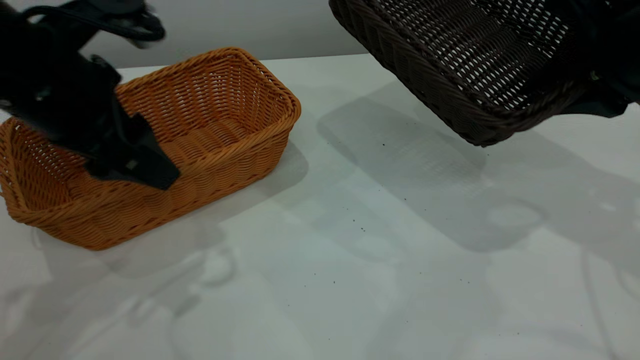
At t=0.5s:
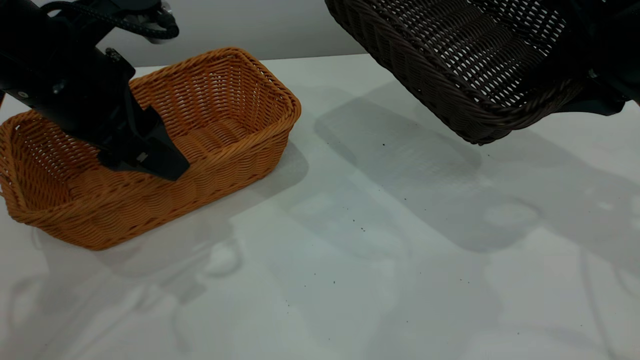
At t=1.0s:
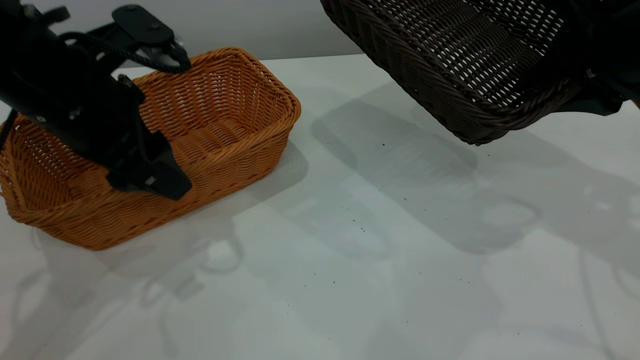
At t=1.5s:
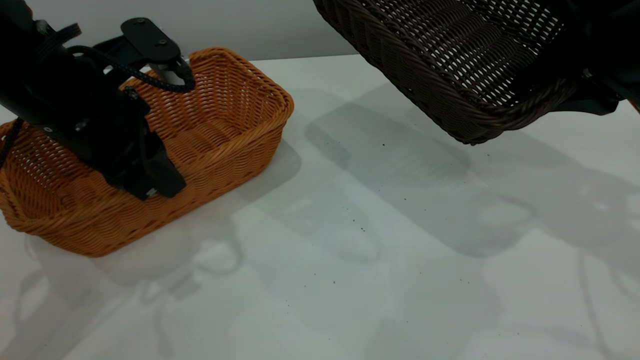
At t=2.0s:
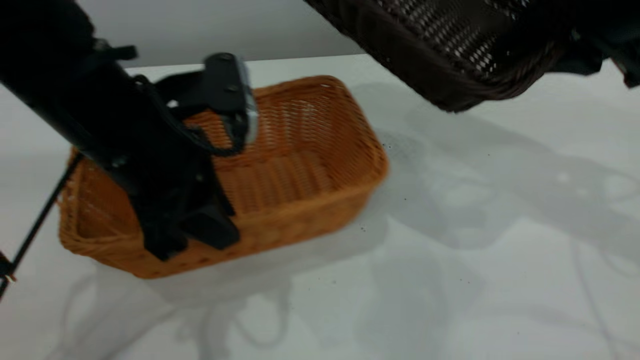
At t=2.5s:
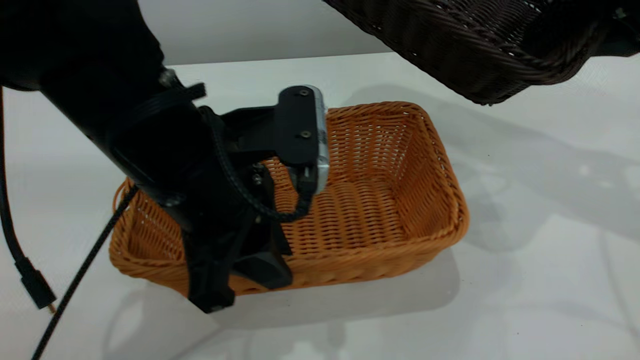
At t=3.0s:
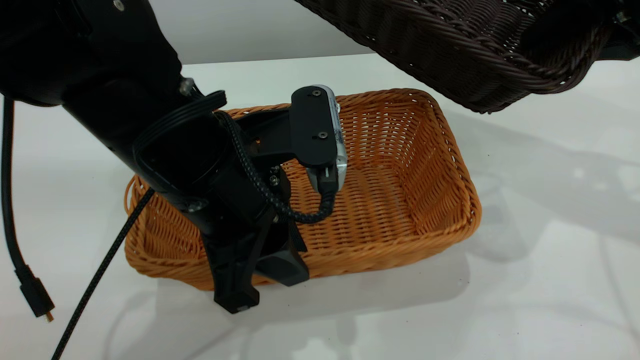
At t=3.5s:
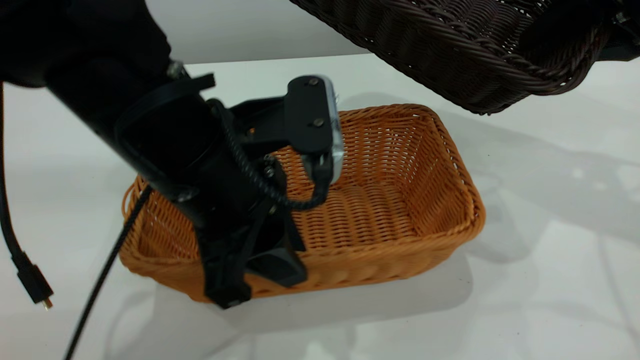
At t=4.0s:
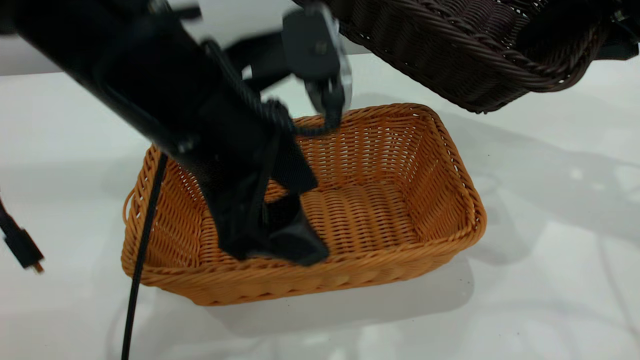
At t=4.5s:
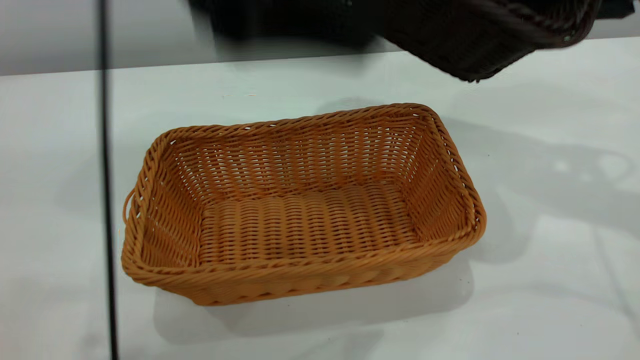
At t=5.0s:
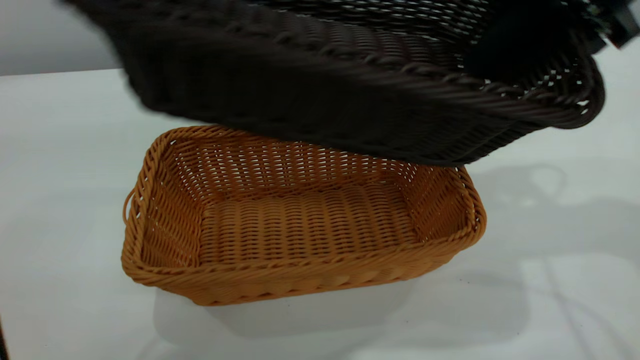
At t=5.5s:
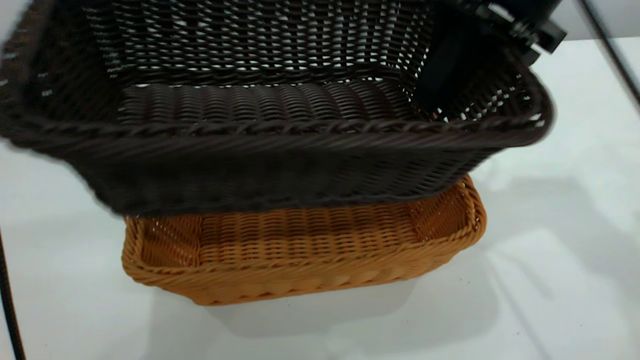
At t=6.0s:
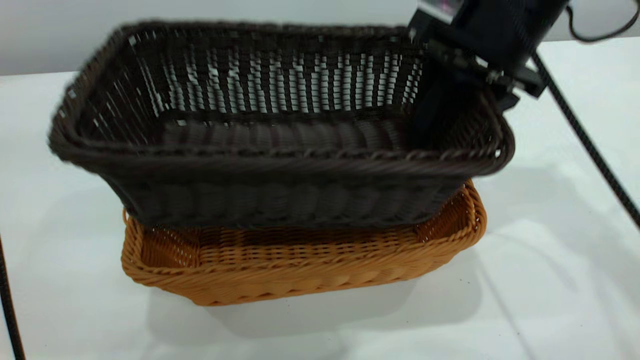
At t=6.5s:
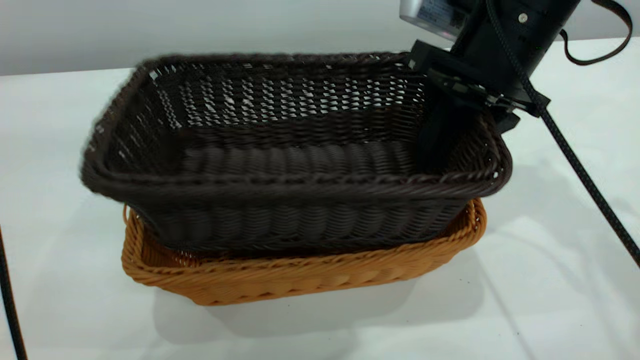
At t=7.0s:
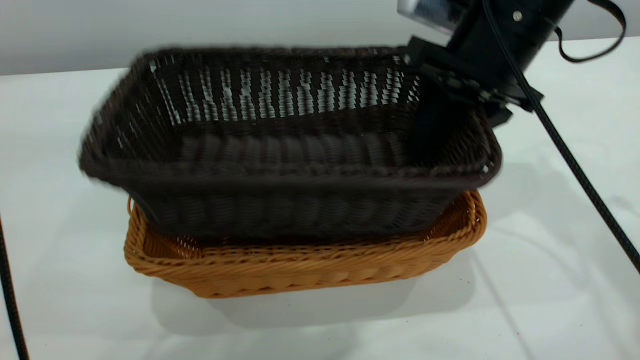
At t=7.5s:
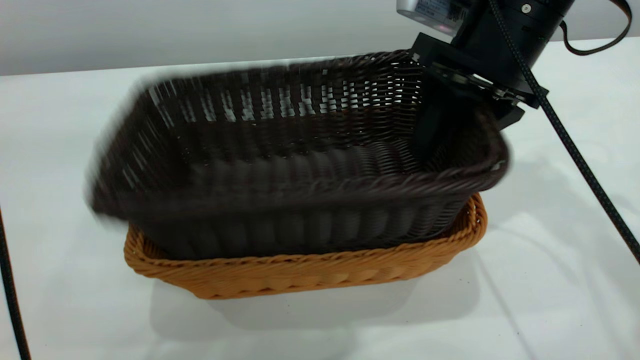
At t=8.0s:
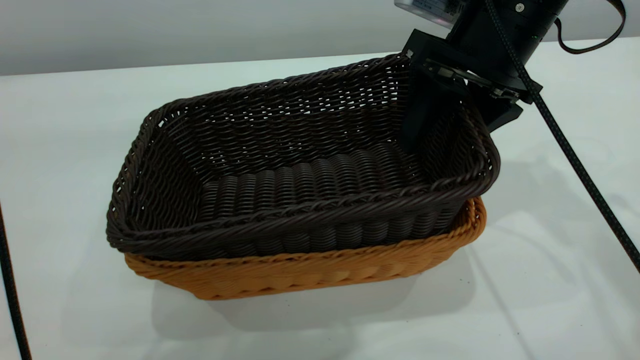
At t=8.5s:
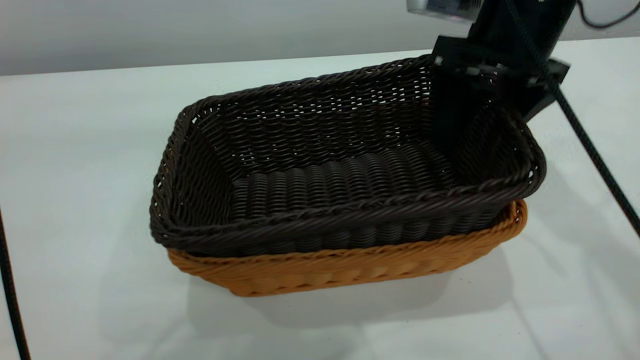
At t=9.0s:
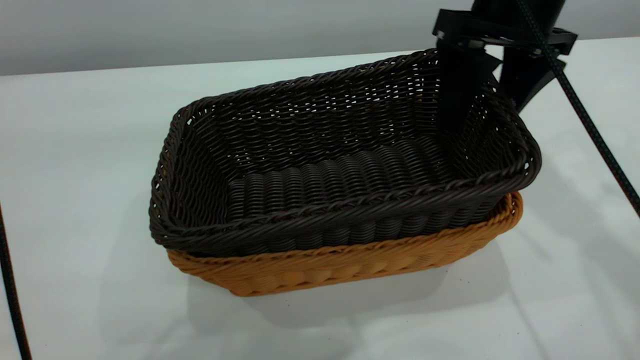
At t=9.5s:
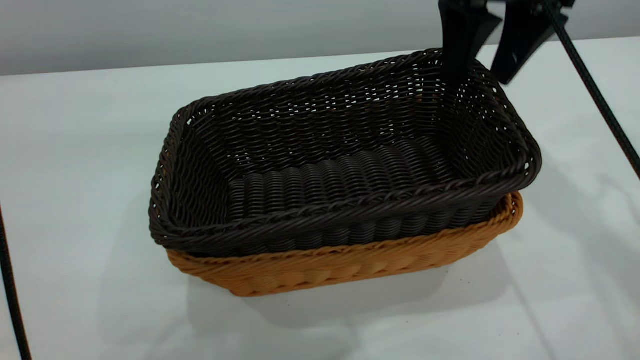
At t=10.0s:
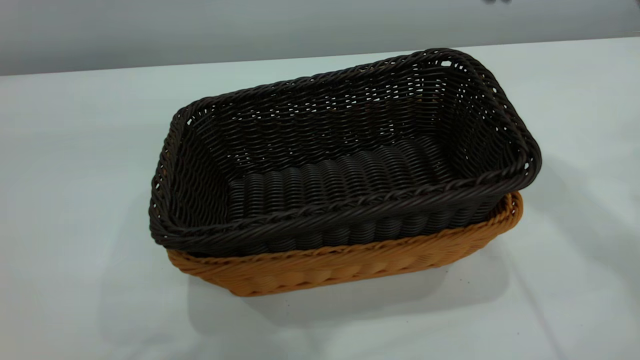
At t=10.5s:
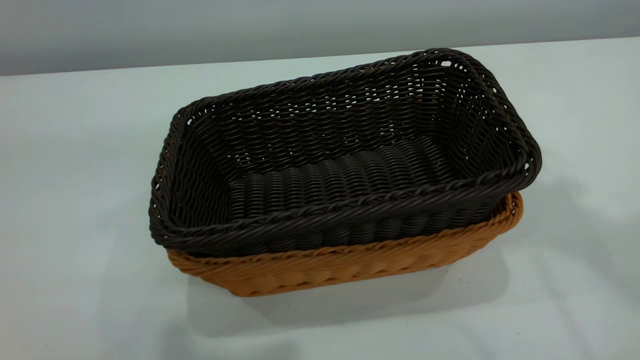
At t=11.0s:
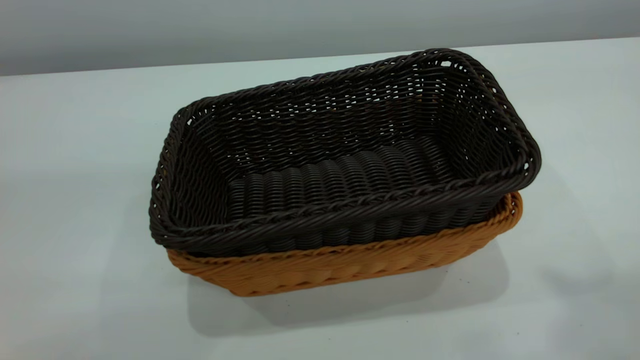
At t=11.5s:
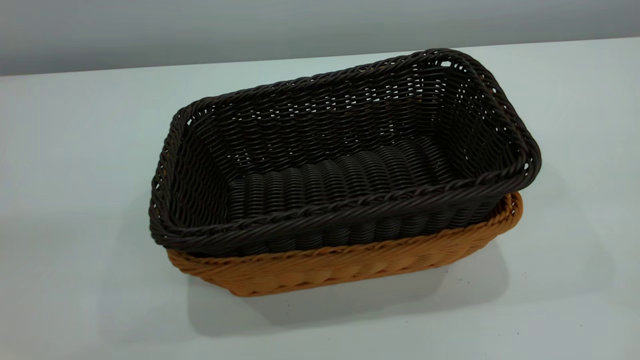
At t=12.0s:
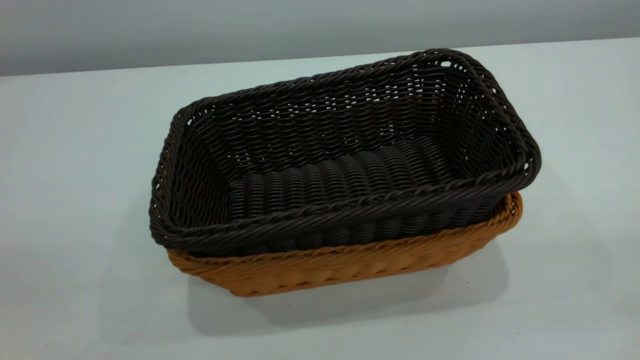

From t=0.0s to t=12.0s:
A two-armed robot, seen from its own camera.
Task of the whole recording: the left gripper grasp the brown basket and place it in the center of the table, the right gripper grasp the black basket and place it inside the brown one.
Step, from t=0.0s to t=4.0s: Place the light-colored basket in the center.
Step, from t=4.5s to t=9.5s: Place the dark basket on top of the light basket.
From t=0.0s to t=2.0s: The left gripper goes some 5 cm to the right, and closes its fingers.
From t=2.0s to t=4.0s: The left gripper travels to the right by approximately 5 cm, and opens its fingers.
From t=4.0s to t=6.0s: The right gripper goes approximately 10 cm to the left. Meanwhile the left gripper moves upward, approximately 25 cm.
From t=6.0s to t=8.0s: The right gripper opens.
From t=8.0s to t=10.0s: The left gripper closes up. The right gripper moves upward, some 15 cm, and closes.
From t=10.0s to t=12.0s: The left gripper is displaced to the left, backward and downward by roughly 20 cm, and closes its fingers. The right gripper shifts roughly 40 cm backward and to the right.
